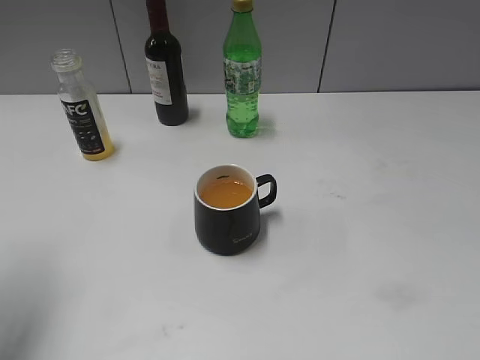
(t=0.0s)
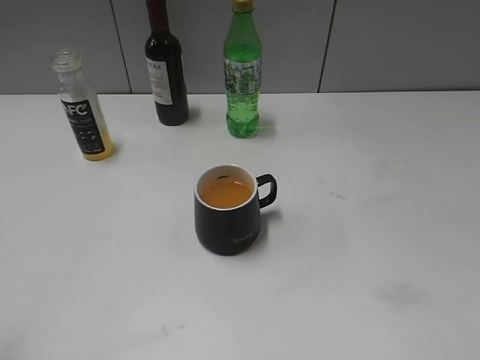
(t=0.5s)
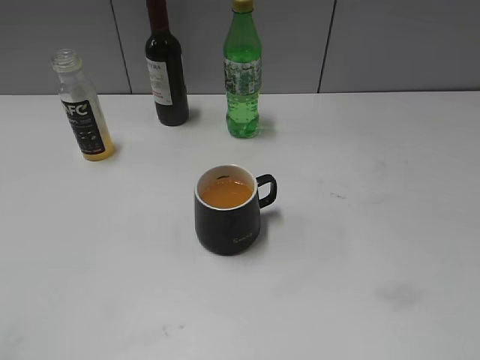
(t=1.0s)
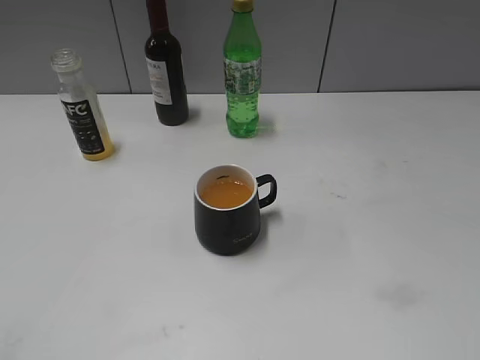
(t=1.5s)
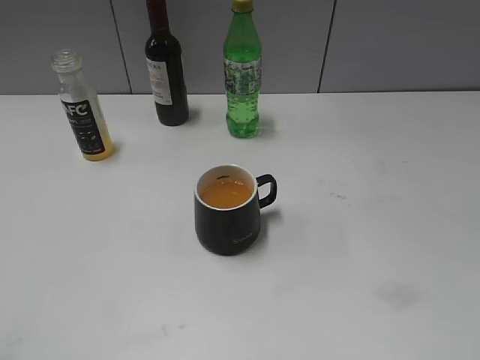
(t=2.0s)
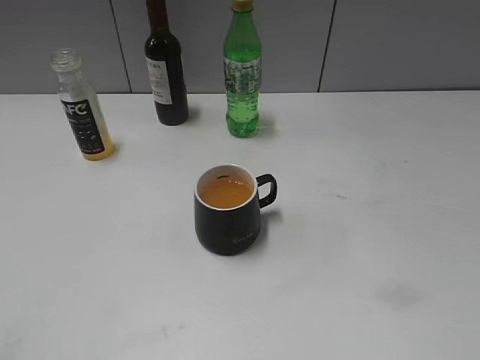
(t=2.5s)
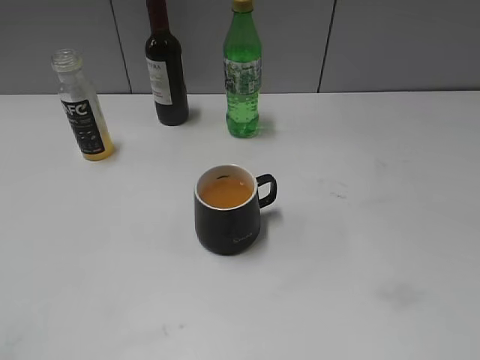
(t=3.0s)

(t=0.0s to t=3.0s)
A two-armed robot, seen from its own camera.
t=0.0s - t=1.5s: The left gripper is displaced backward by about 20 cm.

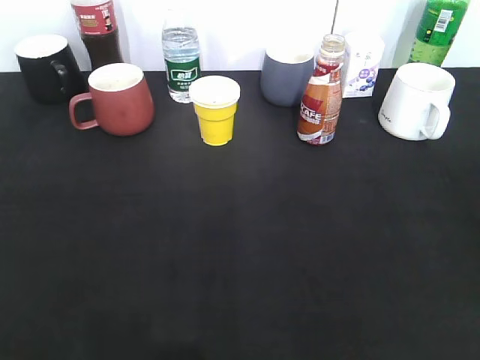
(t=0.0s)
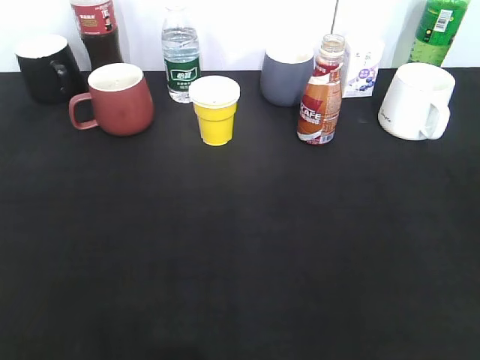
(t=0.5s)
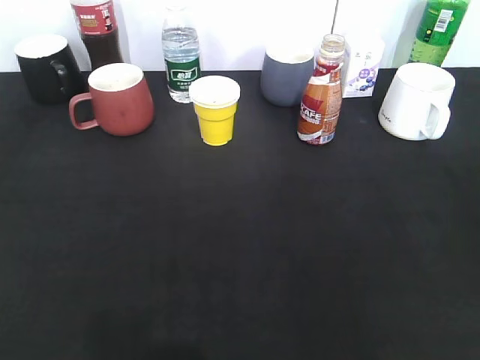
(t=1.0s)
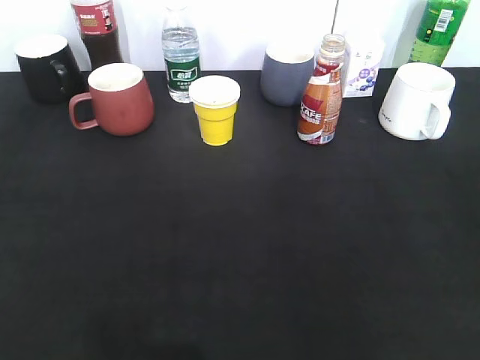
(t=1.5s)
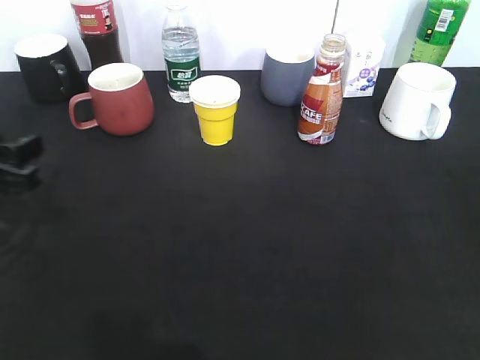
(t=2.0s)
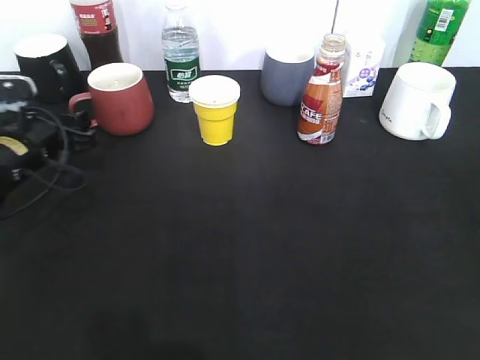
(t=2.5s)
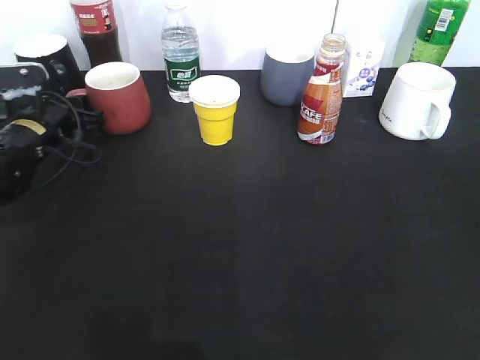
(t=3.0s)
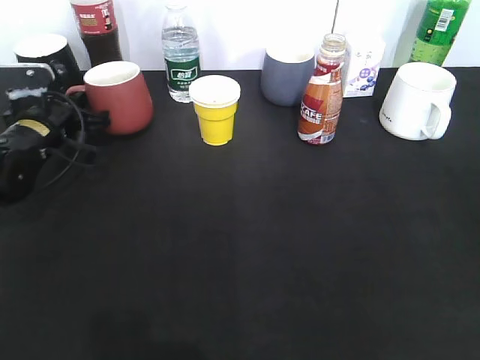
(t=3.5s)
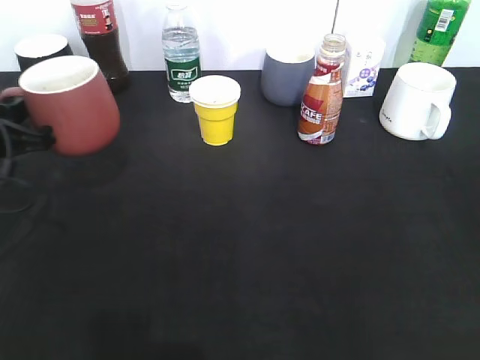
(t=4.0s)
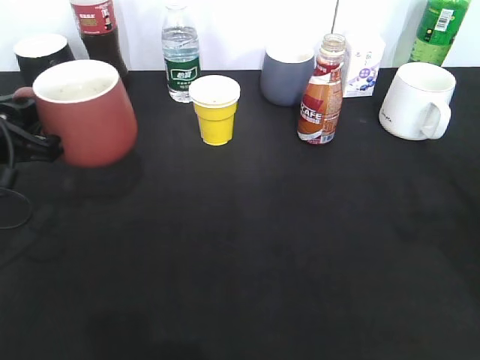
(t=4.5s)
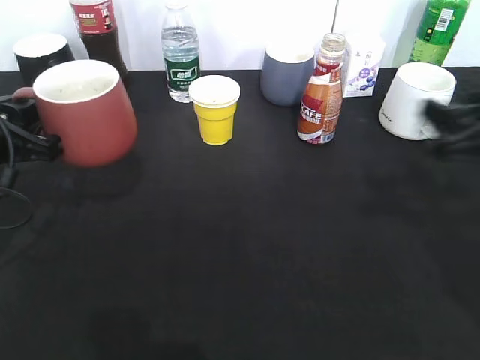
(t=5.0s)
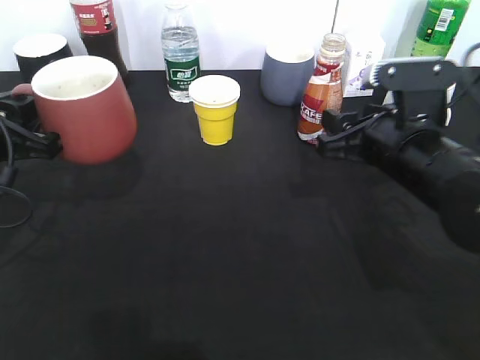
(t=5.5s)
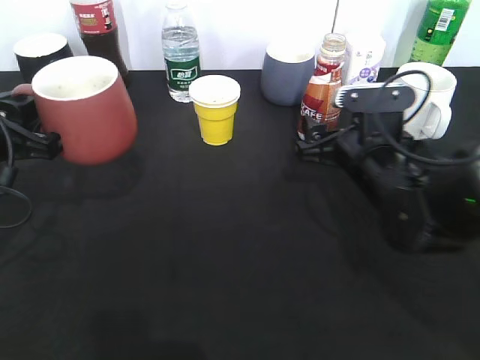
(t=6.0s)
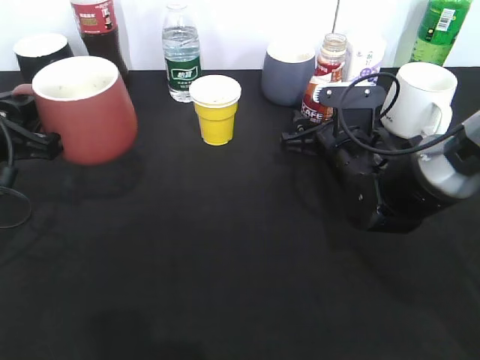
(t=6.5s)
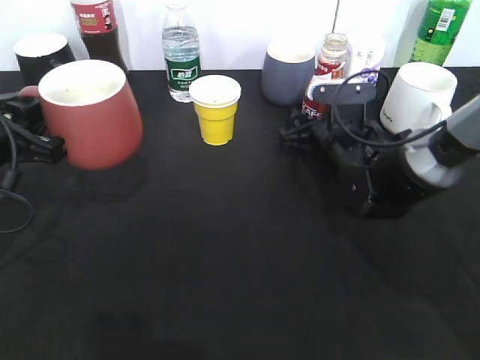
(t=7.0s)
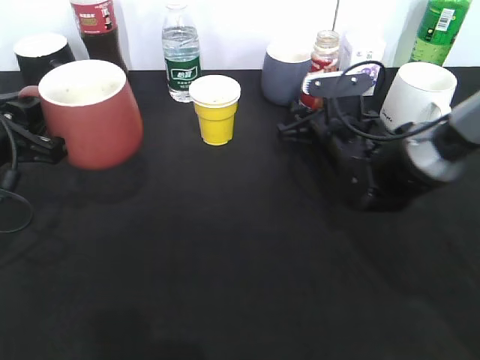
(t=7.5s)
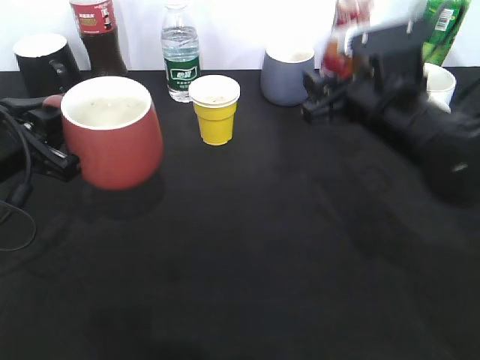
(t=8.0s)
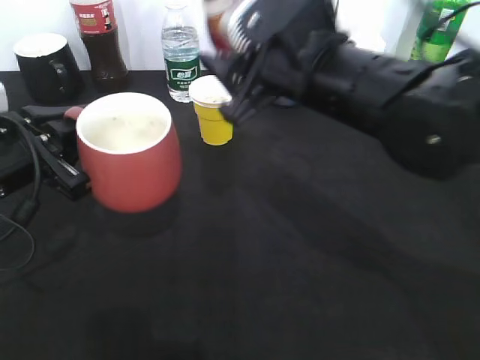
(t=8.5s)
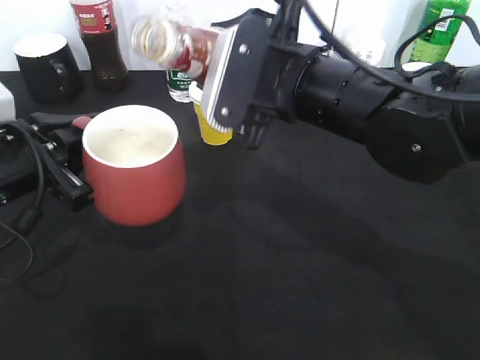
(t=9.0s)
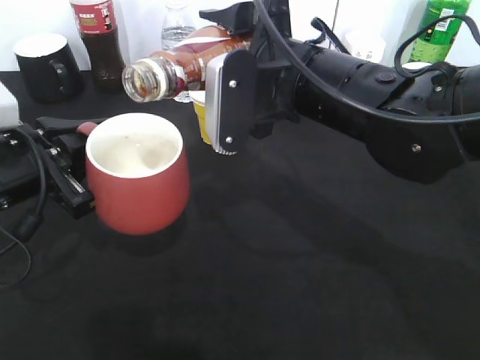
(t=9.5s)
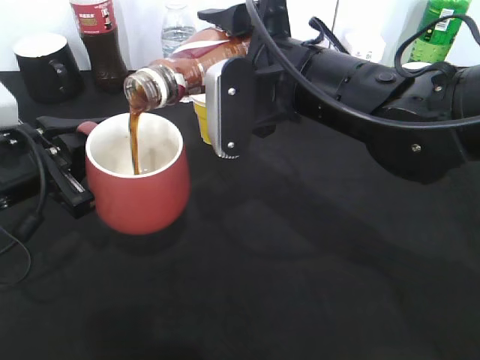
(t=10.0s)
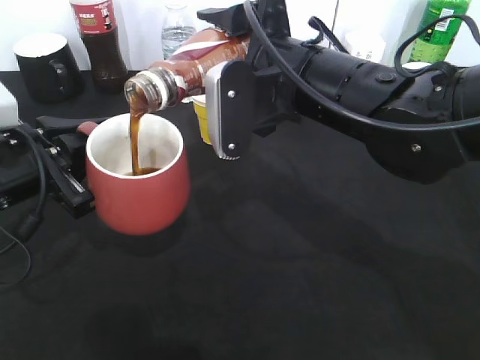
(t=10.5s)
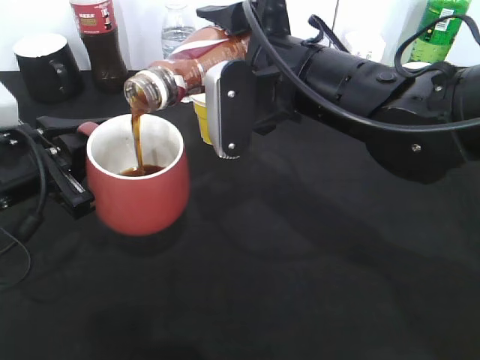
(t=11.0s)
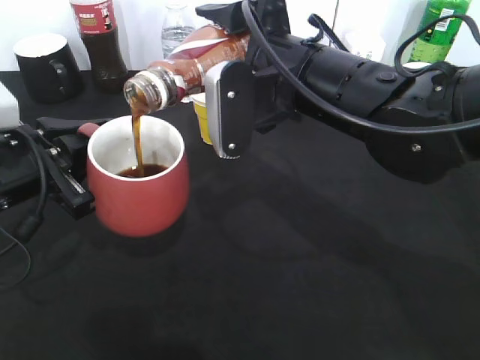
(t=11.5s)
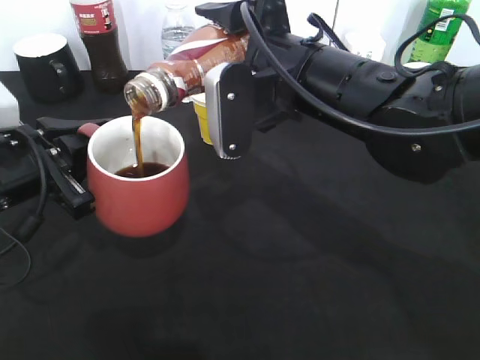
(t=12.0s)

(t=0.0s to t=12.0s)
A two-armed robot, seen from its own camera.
Step, t=2.0s - t=3.0s: Grasp the red cup with left gripper.
Step, t=3.5s - t=4.5s: Lift the red cup with left gripper.
Step, t=5.0s - t=7.0s: Grasp the bottle with coffee with right gripper.
t=0.0s - t=2.0s: The left gripper moves forward and downward, about 25 cm.
t=2.0s - t=4.0s: The left gripper reaches about 15 cm forward, then returns, and closes.
t=4.0s - t=6.0s: The right gripper shifts approximately 40 cm forward, downward and to the left, and opens up.
t=6.0s - t=8.0s: The right gripper moves upward, roughly 10 cm, and closes.
t=8.0s - t=10.0s: The right gripper moves to the left, approximately 10 cm.
t=10.0s - t=12.0s: Both grippers stay about where they are.

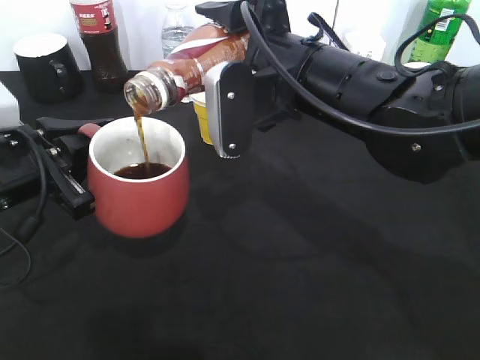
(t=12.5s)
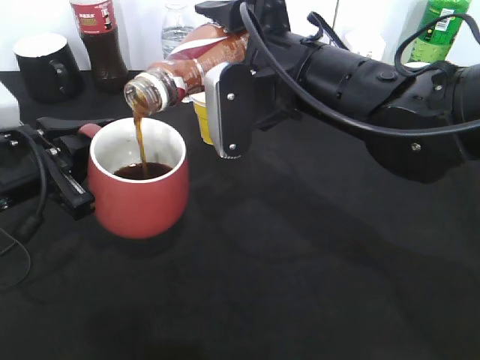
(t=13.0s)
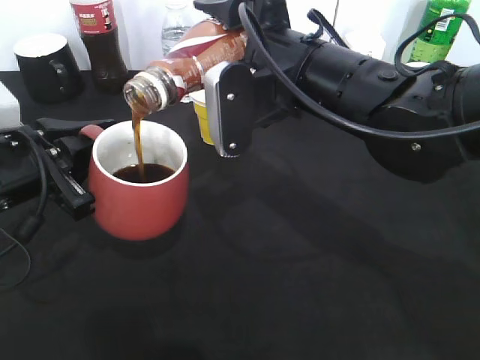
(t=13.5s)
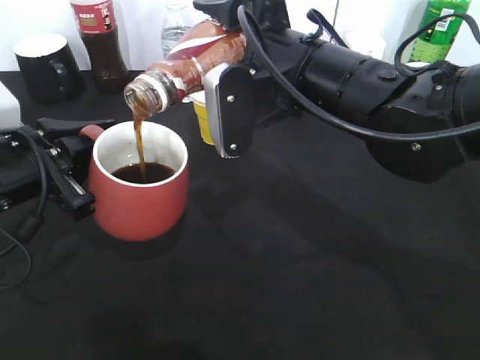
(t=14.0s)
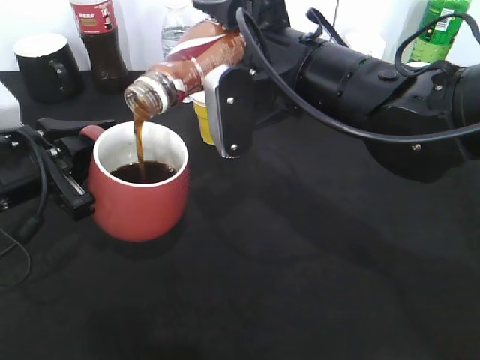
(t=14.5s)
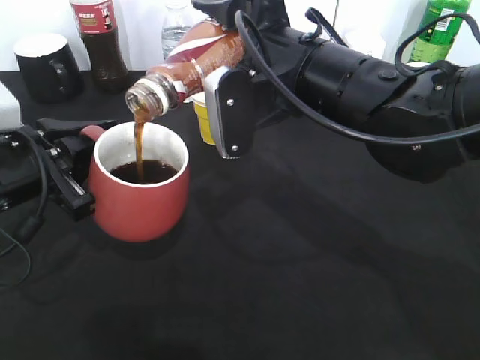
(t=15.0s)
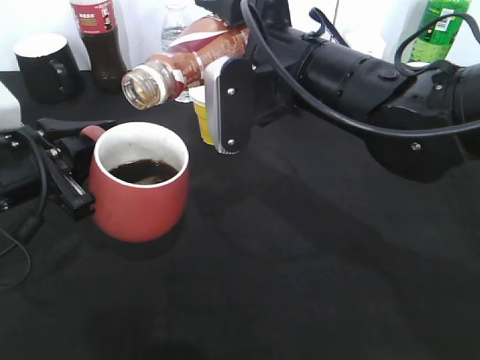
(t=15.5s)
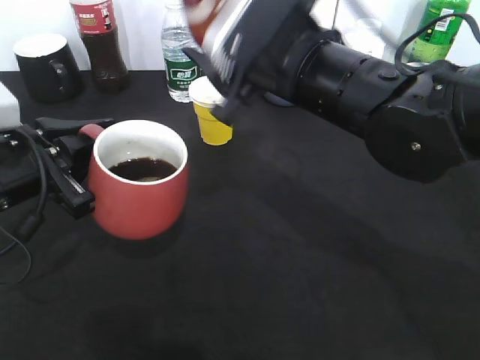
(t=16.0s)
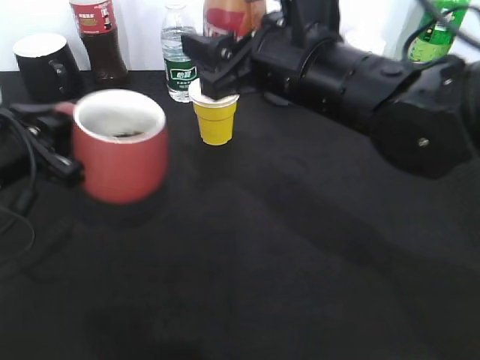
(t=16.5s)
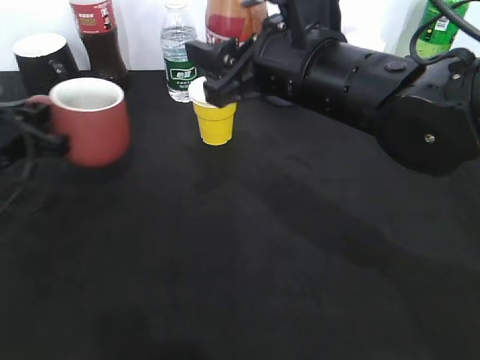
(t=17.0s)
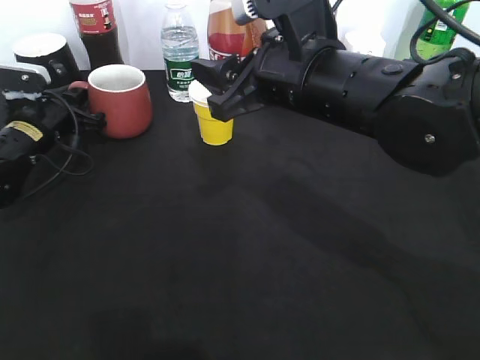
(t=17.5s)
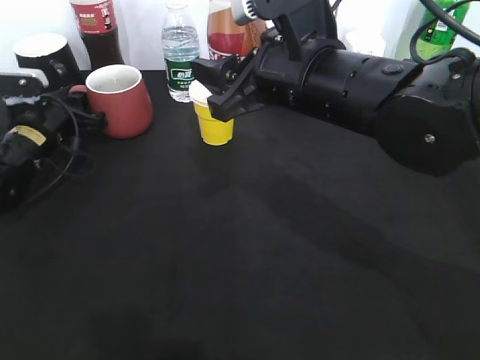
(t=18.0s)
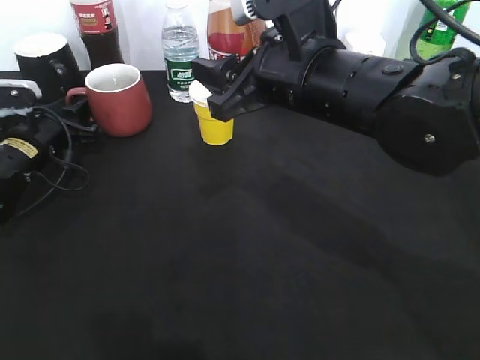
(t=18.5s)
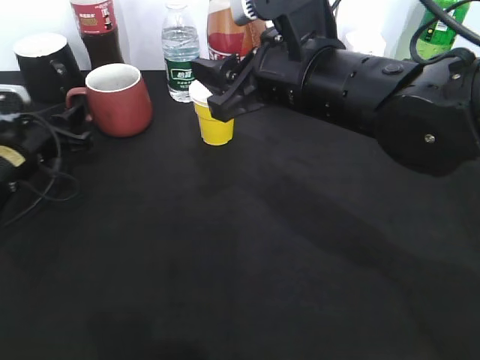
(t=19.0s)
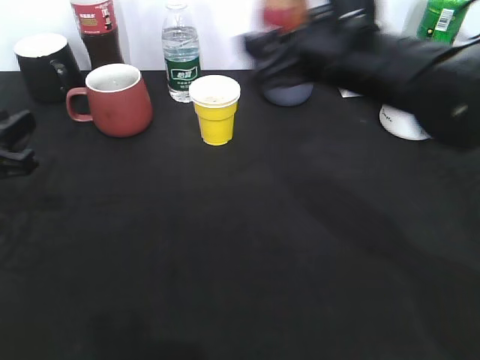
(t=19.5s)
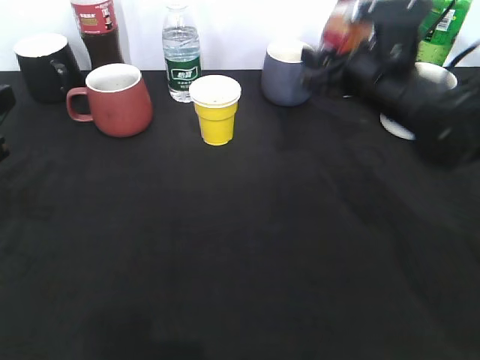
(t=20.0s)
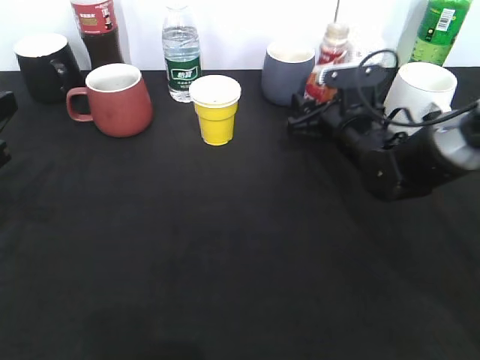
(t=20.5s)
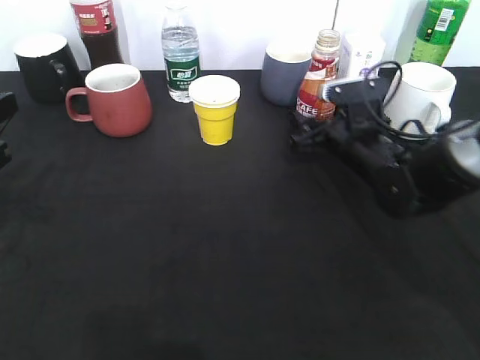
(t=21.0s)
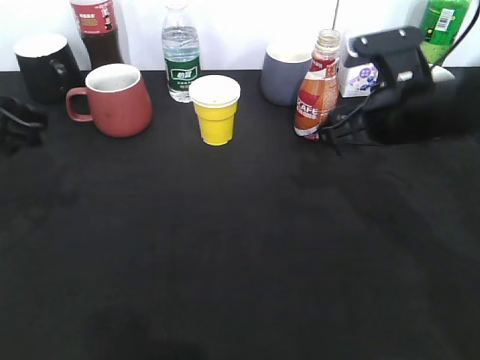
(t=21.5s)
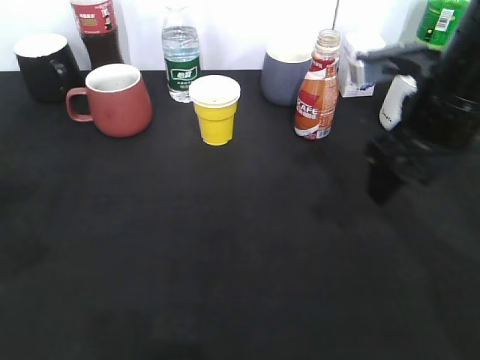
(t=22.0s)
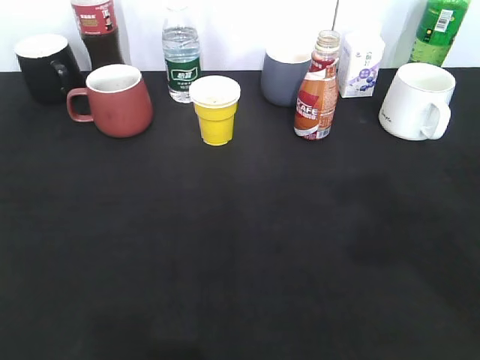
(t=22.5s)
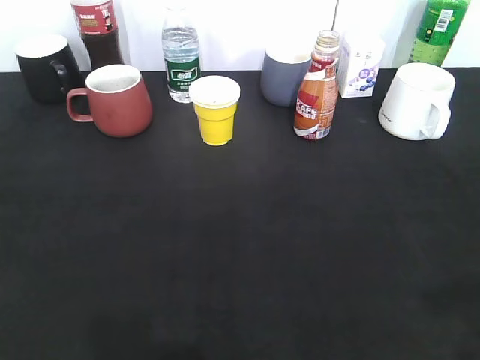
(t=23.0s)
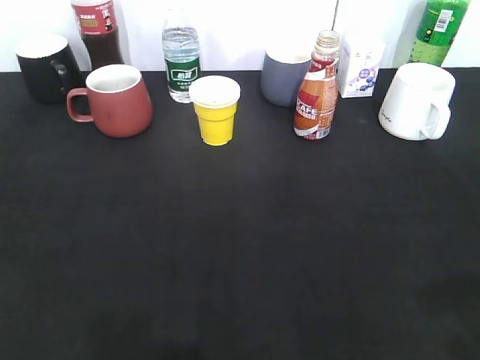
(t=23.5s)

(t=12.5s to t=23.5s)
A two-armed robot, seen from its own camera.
Step, t=12.5s - t=15.5s: Pour the coffee from bottle to cup with right gripper.
Step, t=16.5s - t=18.0s: Place the red cup on the table with left gripper.
Step, t=18.5s - t=20.5s: Place the coffee bottle on the table with right gripper.
t=12.5s - t=14.5s: There are only small adjustments of the grippers.
t=16.0s - t=18.0s: The left gripper goes approximately 20 cm forward and downward.
t=18.0s - t=20.0s: The left gripper is displaced backward and upward by roughly 25 cm. Meanwhile the right gripper shifts approximately 15 cm to the right, forward and downward.
t=20.0s - t=21.5s: The left gripper moves roughly 5 cm; the right gripper reaches about 10 cm downward, then returns, and opens up.
t=21.5s - t=23.5s: The right gripper shifts about 25 cm backward and to the right, while the left gripper is displaced backward by some 20 cm, and opens its fingers.
